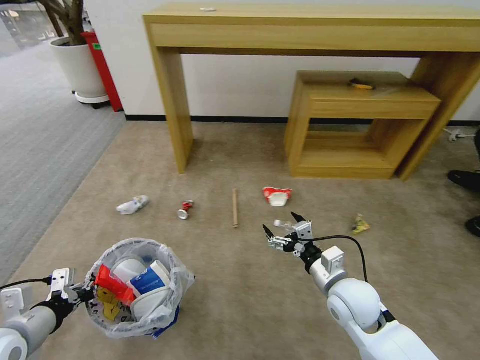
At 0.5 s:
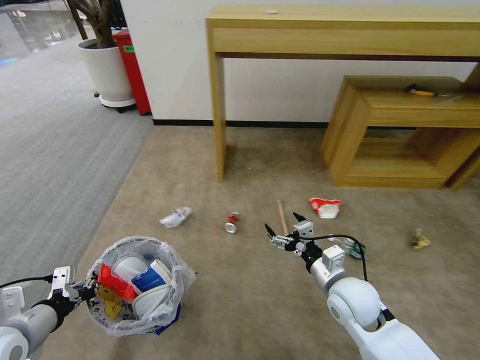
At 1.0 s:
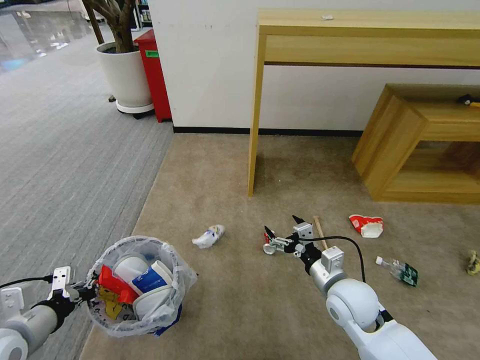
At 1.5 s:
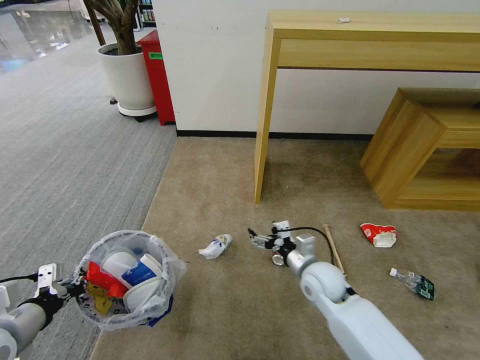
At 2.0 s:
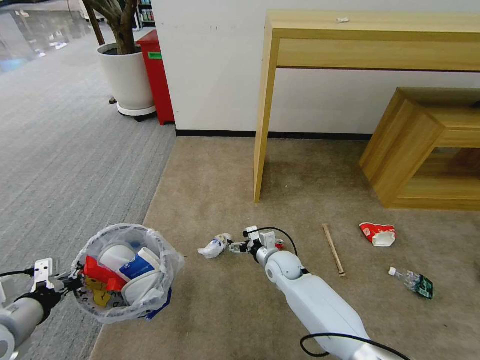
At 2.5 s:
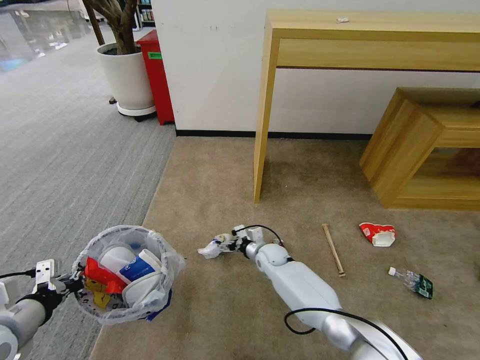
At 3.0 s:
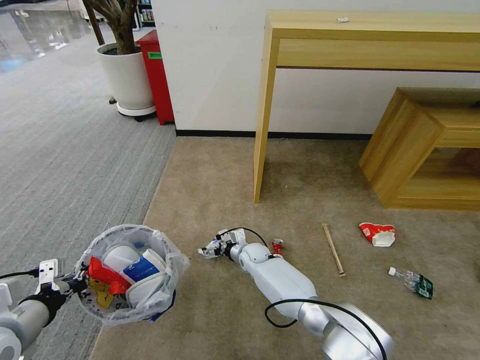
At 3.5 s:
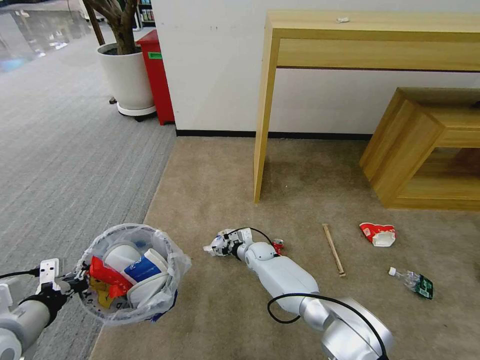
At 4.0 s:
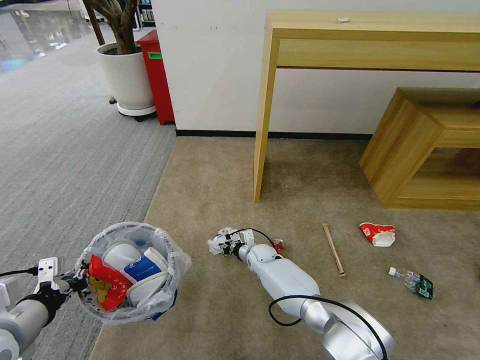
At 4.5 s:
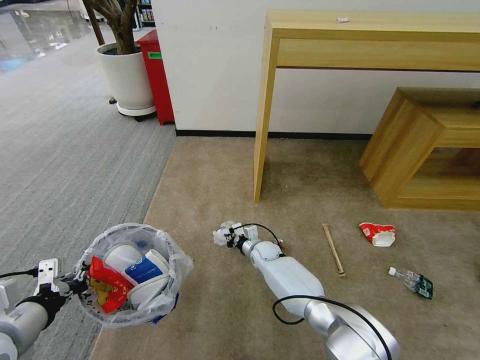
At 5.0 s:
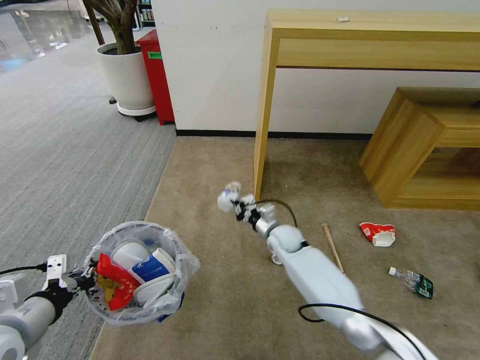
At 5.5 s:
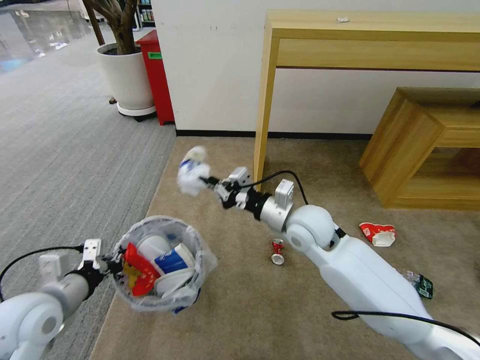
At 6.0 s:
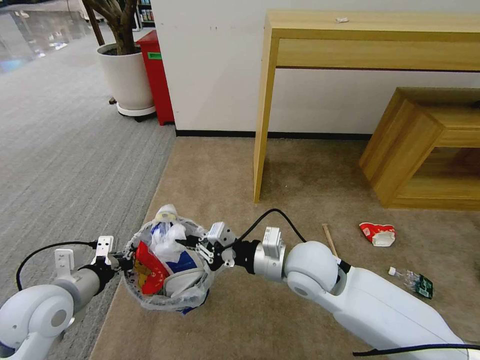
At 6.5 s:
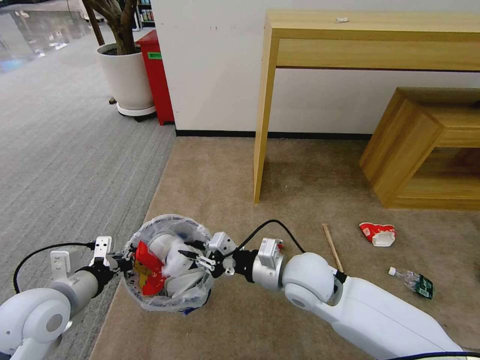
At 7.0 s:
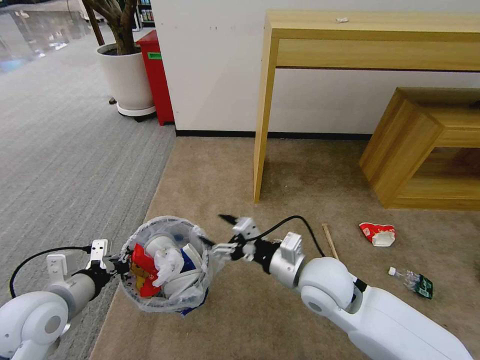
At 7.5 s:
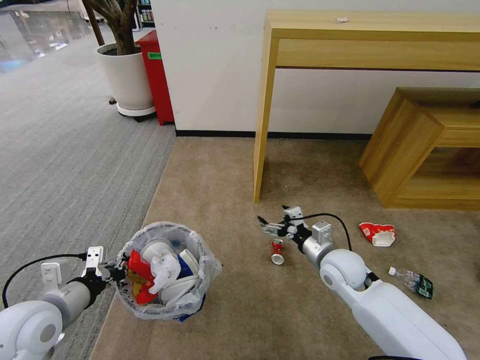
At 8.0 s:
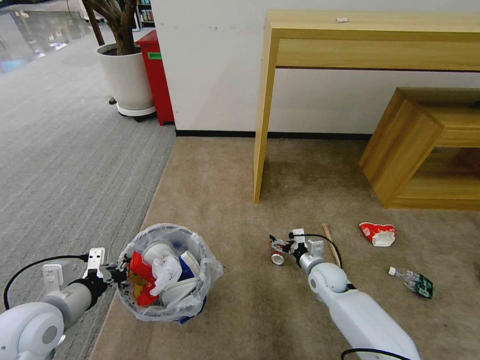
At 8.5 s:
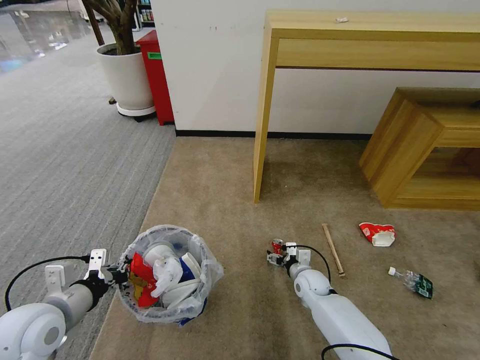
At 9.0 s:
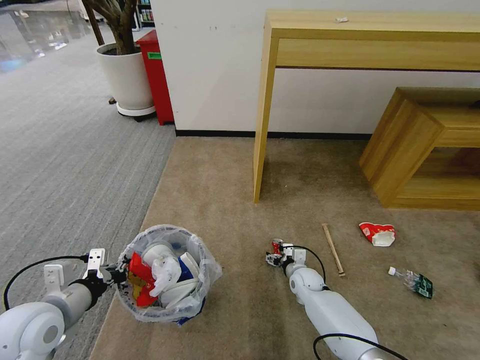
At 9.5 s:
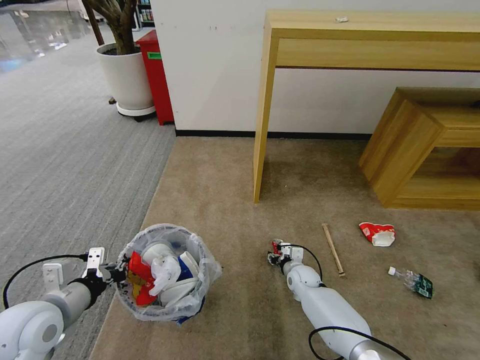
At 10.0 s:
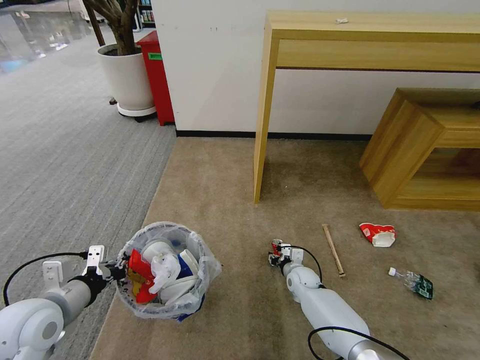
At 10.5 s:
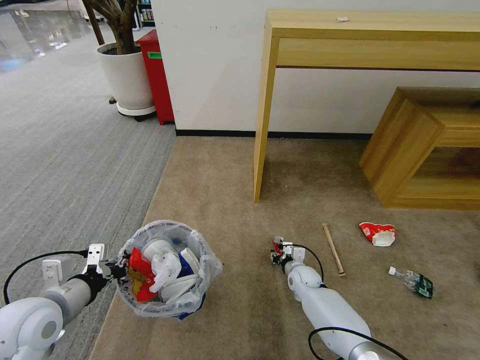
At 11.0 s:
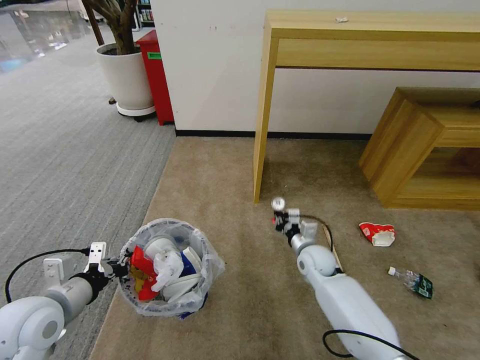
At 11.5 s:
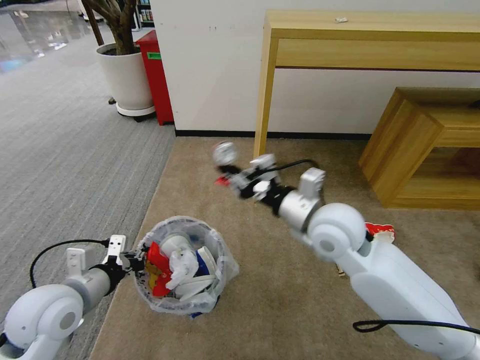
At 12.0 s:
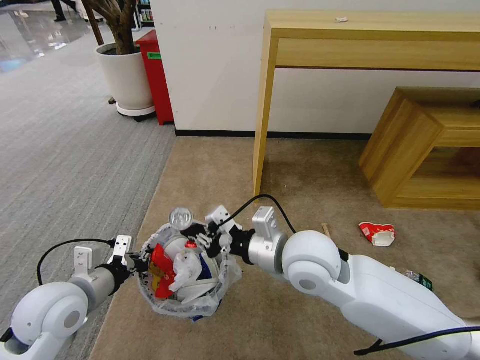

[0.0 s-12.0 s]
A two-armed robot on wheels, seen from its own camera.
Task of the whole recording: Pick up the trash bin and place the garbage on the floor into it.
0.0 to 2.0 s: The right gripper is displaced forward, downward and to the left by about 20 cm.
2.0 to 4.0 s: The right gripper travels downward and forward by about 10 cm, and closes.
4.0 to 6.0 s: The right gripper goes approximately 35 cm upward and backward. Meanwhile the left gripper heads forward, covering some 5 cm.
6.0 to 8.0 s: The right gripper moves downward and to the right, some 25 cm, and opens up.
8.0 to 10.0 s: The right gripper heads downward, covering about 10 cm, and closes.
10.0 to 12.0 s: The right gripper moves upward, some 35 cm.

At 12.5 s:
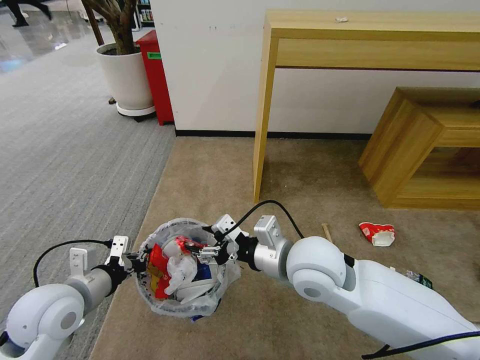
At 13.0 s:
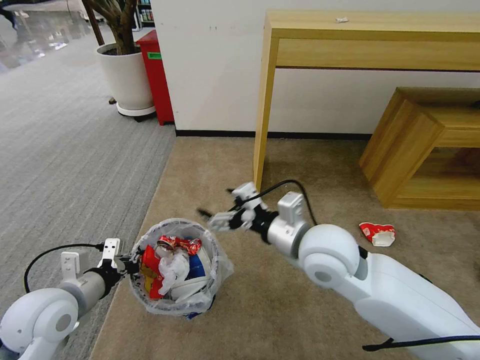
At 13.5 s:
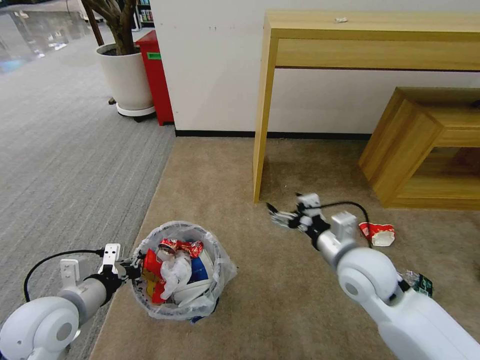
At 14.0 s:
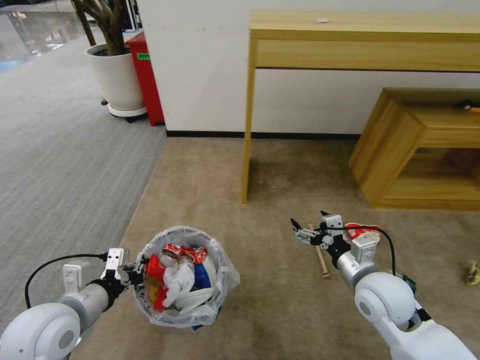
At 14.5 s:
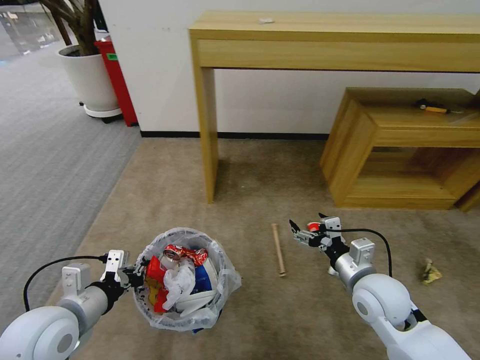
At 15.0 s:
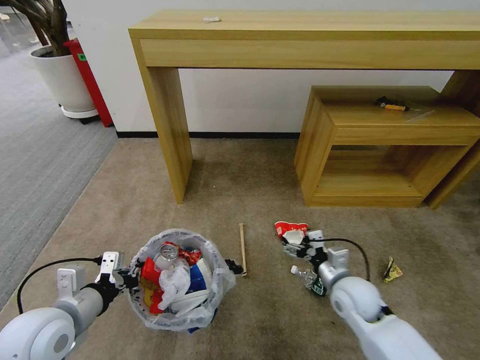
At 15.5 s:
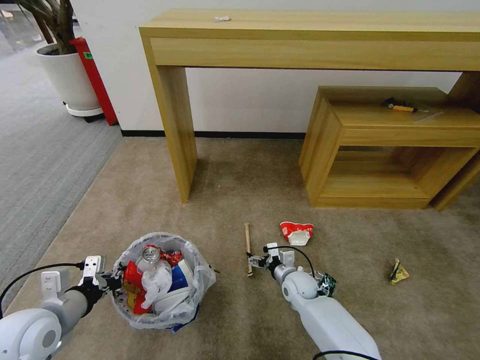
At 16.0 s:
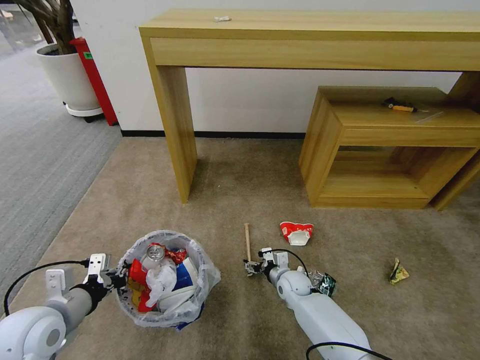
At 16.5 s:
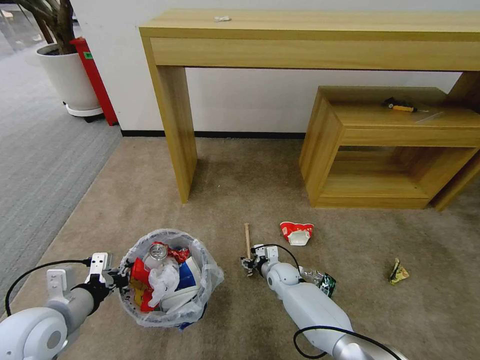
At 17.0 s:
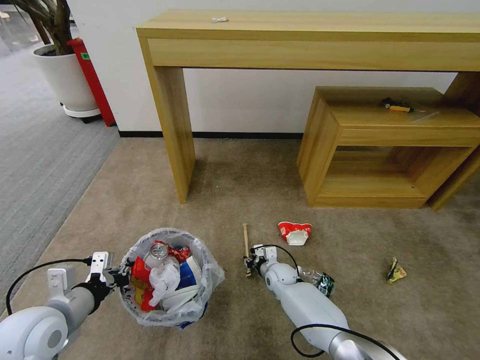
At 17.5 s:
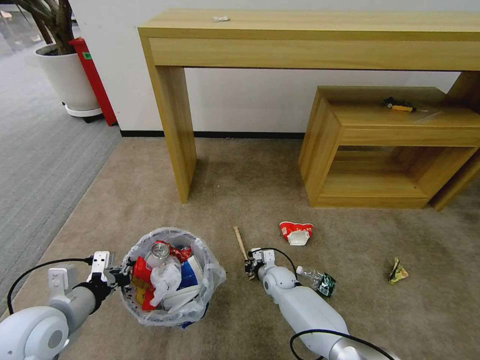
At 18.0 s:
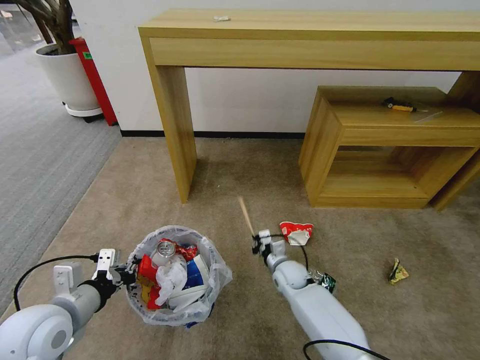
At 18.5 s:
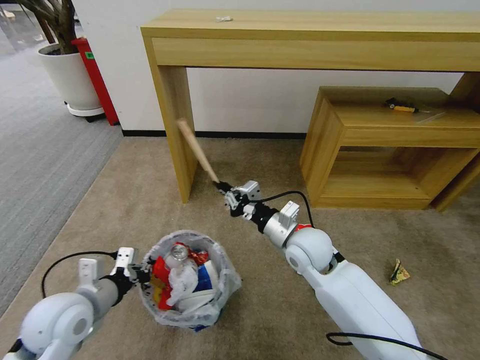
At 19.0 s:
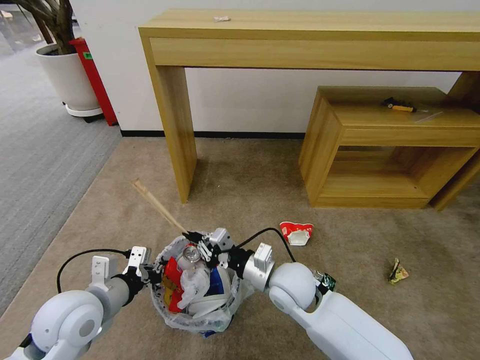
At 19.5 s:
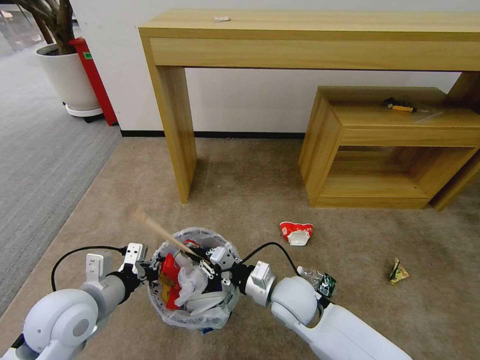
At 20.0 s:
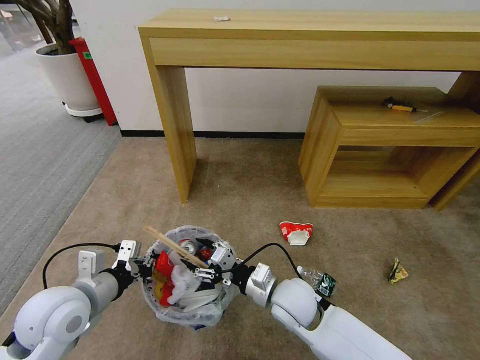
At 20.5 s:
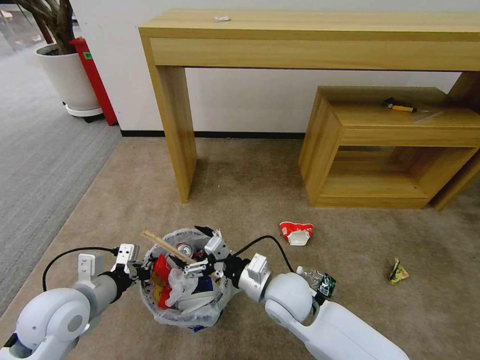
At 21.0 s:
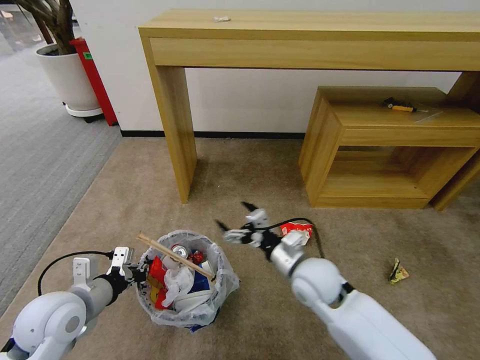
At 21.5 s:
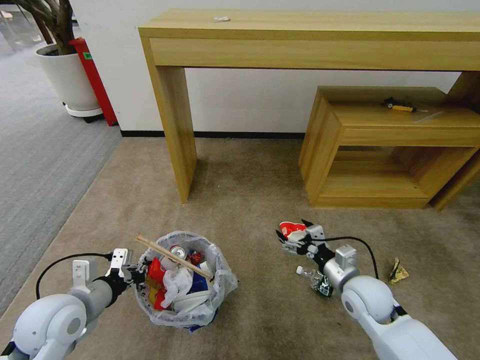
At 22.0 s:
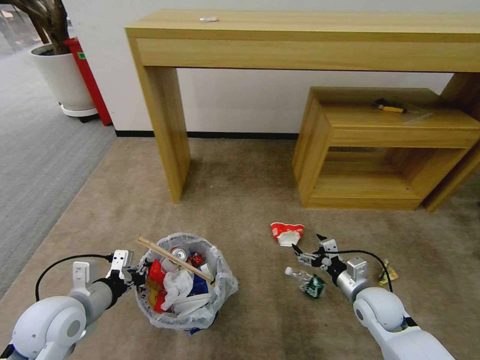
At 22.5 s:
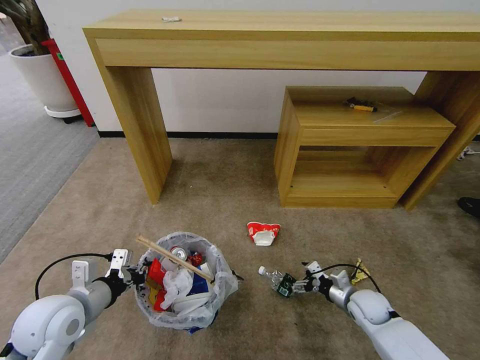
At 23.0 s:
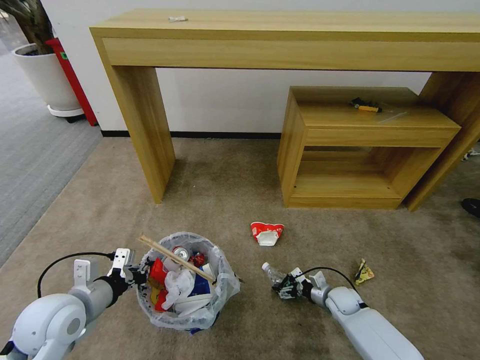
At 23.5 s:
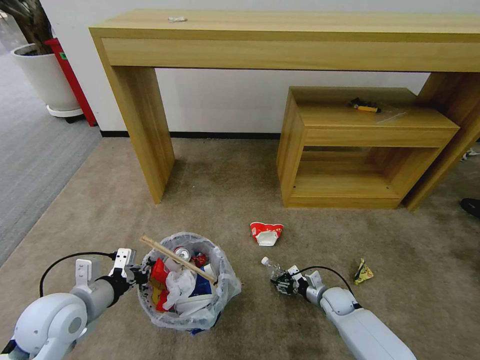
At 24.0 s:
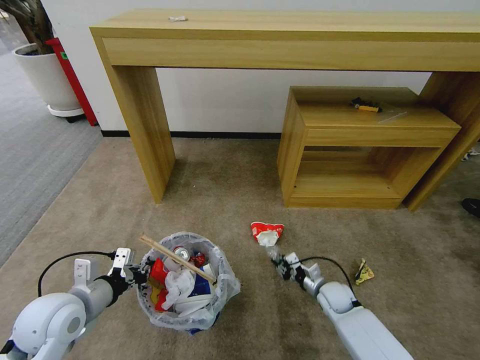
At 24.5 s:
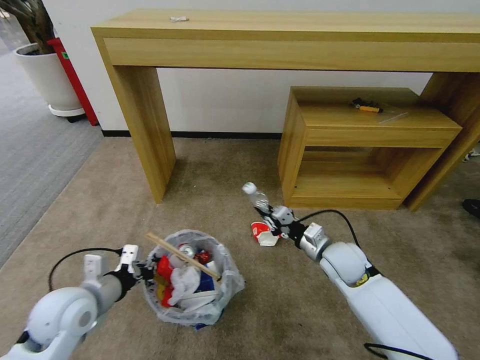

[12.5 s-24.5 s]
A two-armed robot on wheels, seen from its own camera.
Task of the whole recording: Pick up the trash bin and place the garbage on the floor into it.
12.5 to 14.5 s: The right gripper shifts roughly 20 cm to the right and downward.
14.5 to 16.5 s: The right gripper heads downward, forward and to the left, covering approximately 30 cm, and closes up.
16.5 to 18.5 s: The right gripper moves upward, some 25 cm, and closes up.
18.5 to 20.5 s: The right gripper goes about 10 cm backward and to the left, and opens up.
20.5 to 22.5 s: The right gripper travels to the right and downward by approximately 30 cm.
22.5 to 24.5 s: The right gripper shifts approximately 20 cm upward and to the left, and closes up.

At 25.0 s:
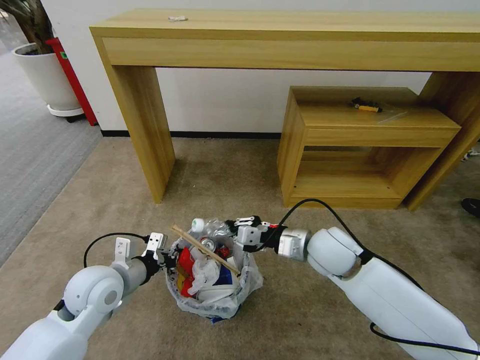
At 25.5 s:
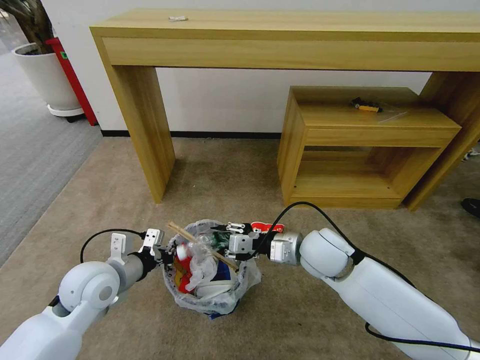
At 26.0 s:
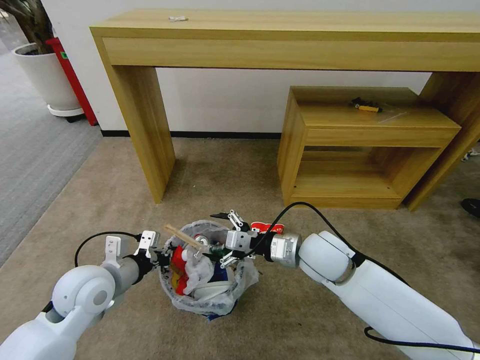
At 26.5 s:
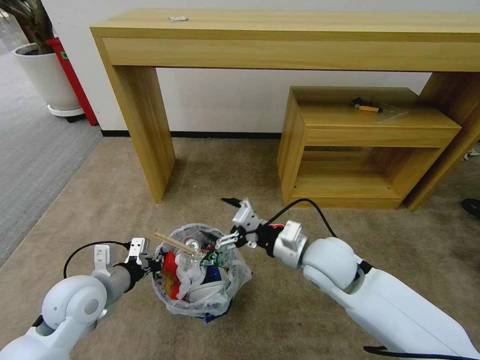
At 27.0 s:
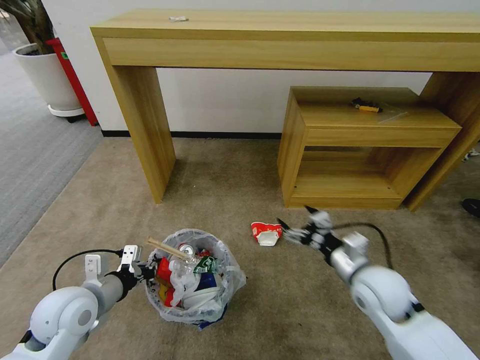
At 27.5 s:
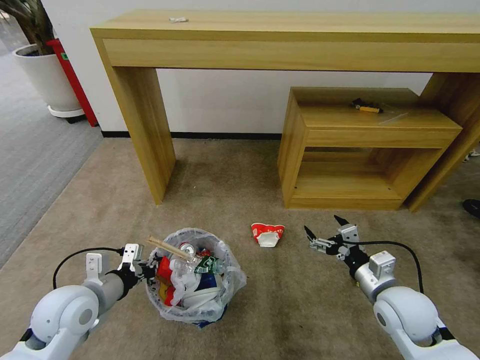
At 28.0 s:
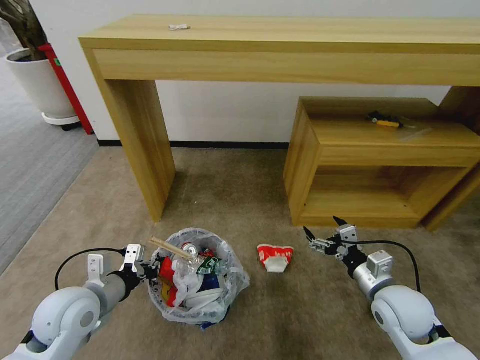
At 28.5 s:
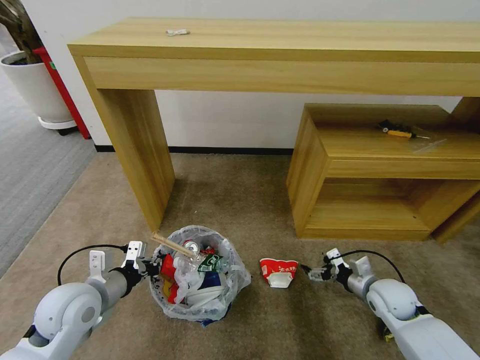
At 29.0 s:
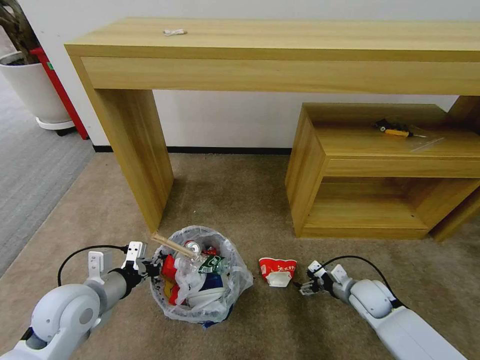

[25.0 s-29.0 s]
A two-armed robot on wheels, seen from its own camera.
Task of the whole recording: Pick up the trash bin and place the garbage on the floor into it.
25.0 to 27.0 s: The left gripper changes place by roughly 5 cm. The right gripper heads to the right and backward, covering roughly 10 cm, and opens its fingers.
27.0 to 29.0 s: The right gripper is displaced downward and to the right by some 20 cm.
